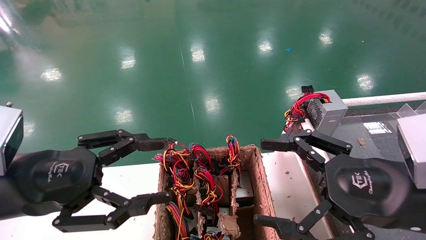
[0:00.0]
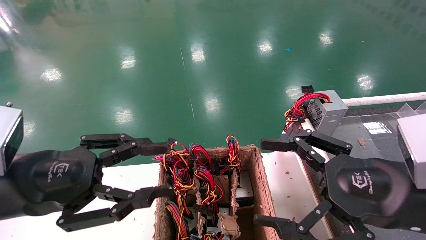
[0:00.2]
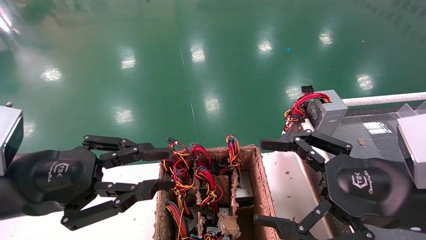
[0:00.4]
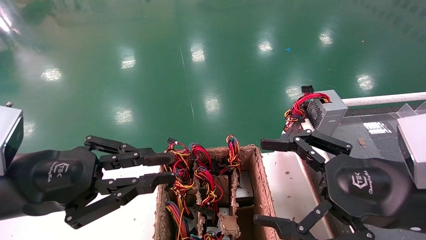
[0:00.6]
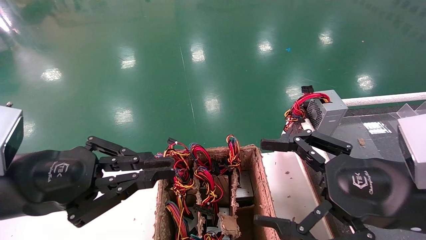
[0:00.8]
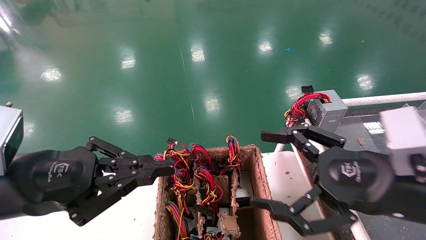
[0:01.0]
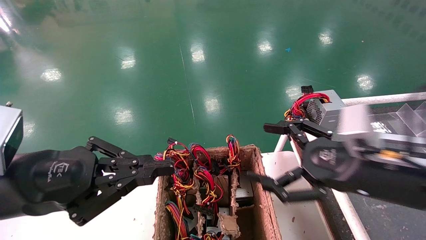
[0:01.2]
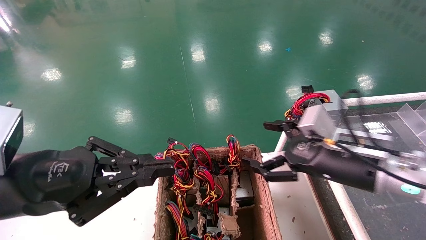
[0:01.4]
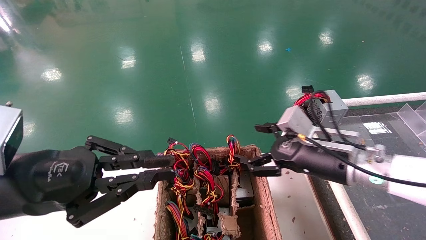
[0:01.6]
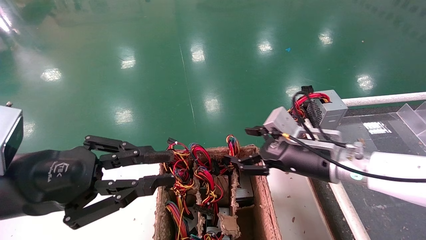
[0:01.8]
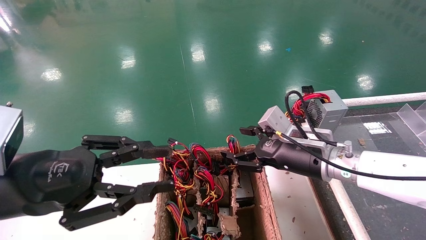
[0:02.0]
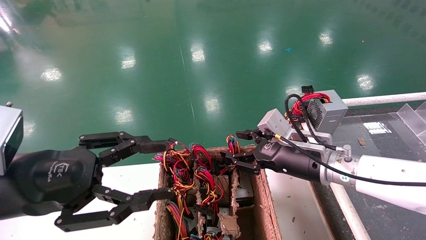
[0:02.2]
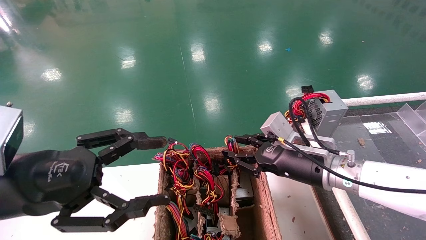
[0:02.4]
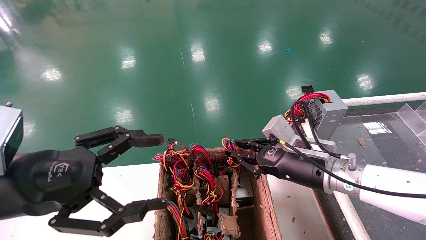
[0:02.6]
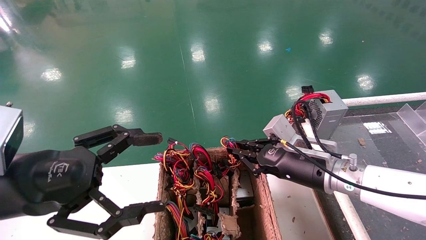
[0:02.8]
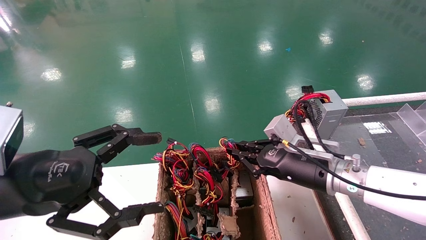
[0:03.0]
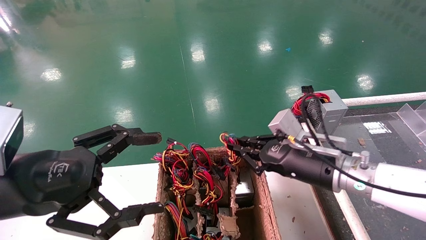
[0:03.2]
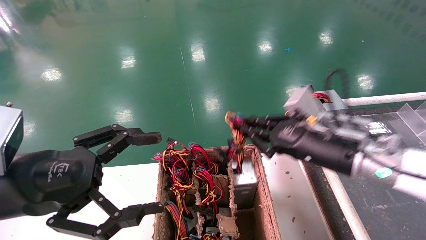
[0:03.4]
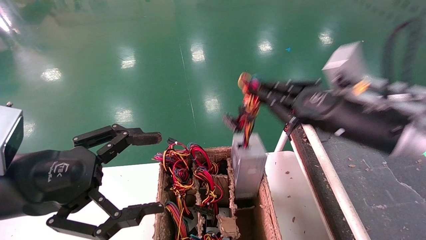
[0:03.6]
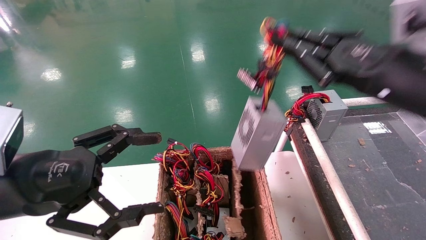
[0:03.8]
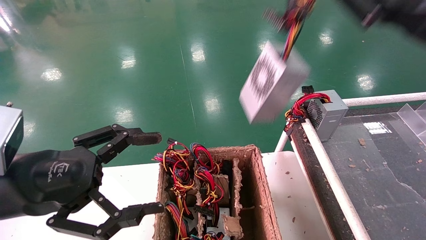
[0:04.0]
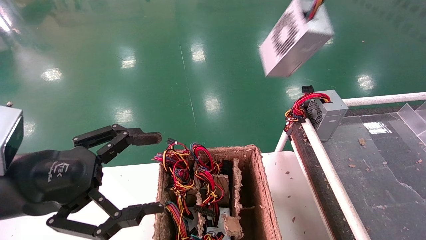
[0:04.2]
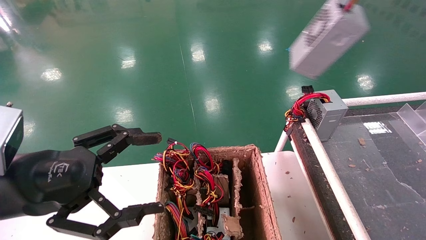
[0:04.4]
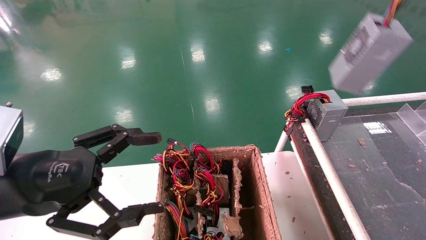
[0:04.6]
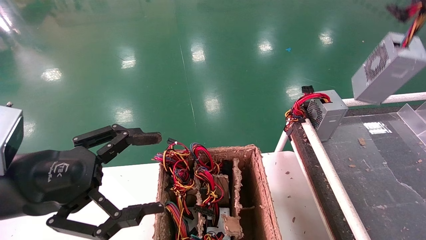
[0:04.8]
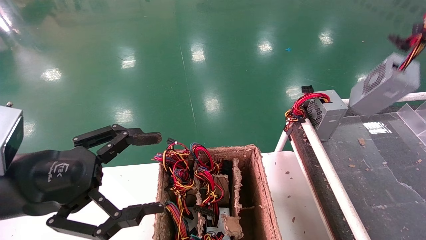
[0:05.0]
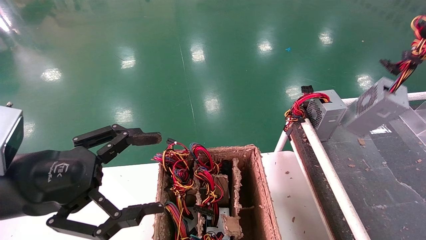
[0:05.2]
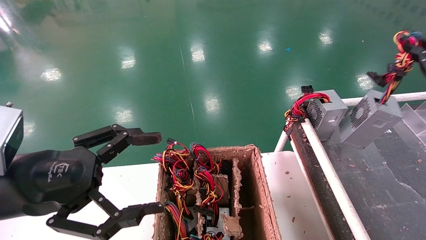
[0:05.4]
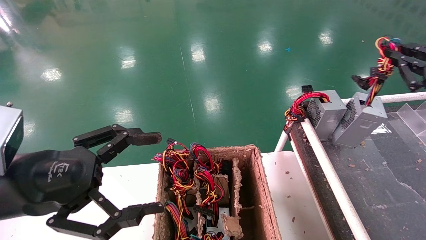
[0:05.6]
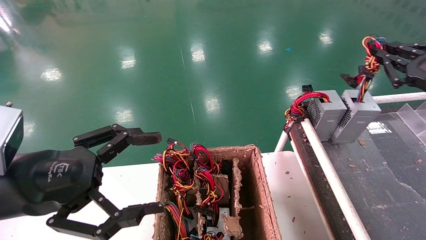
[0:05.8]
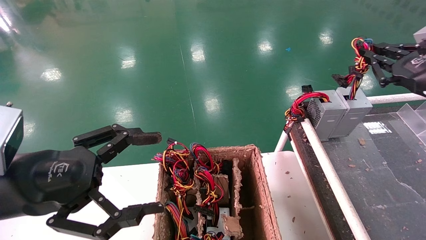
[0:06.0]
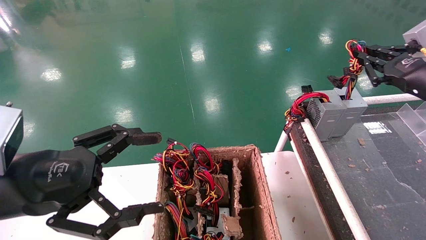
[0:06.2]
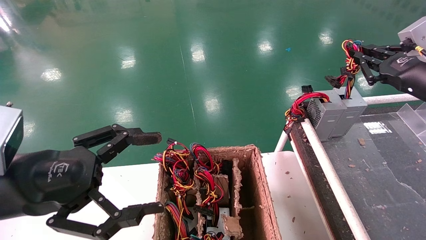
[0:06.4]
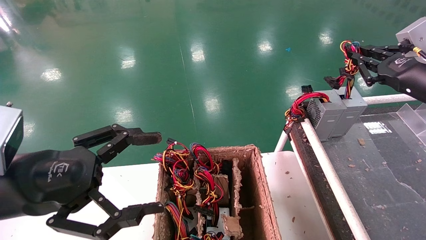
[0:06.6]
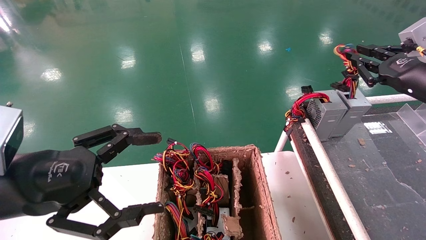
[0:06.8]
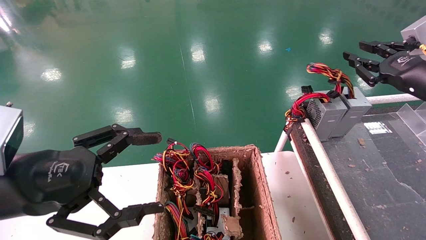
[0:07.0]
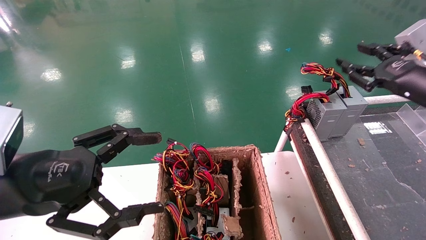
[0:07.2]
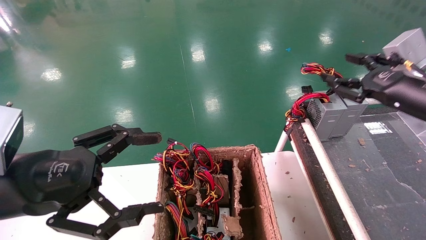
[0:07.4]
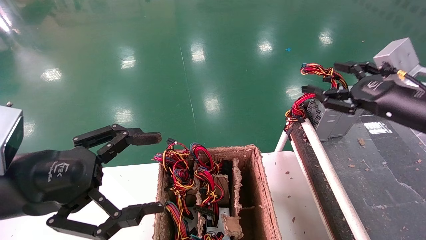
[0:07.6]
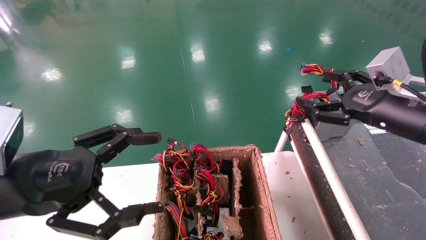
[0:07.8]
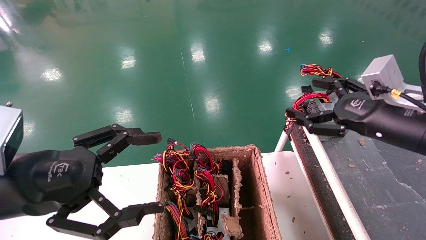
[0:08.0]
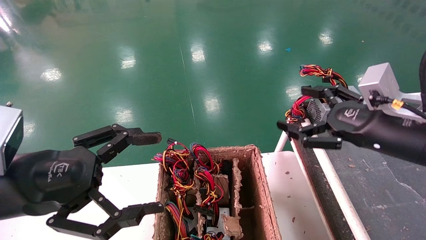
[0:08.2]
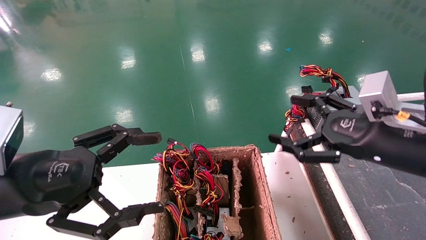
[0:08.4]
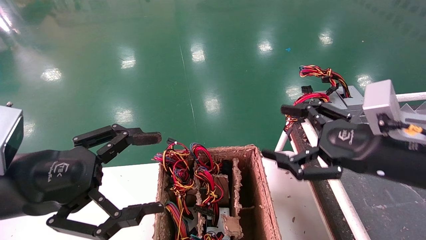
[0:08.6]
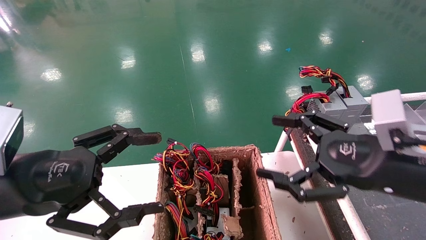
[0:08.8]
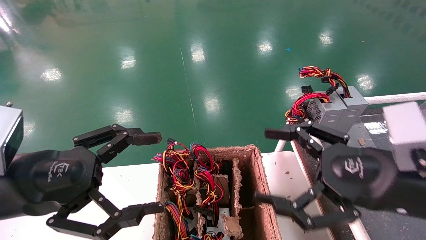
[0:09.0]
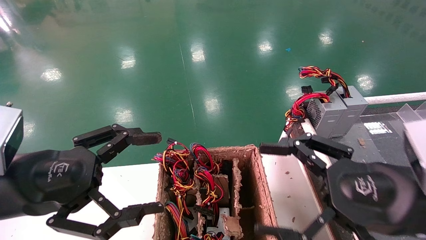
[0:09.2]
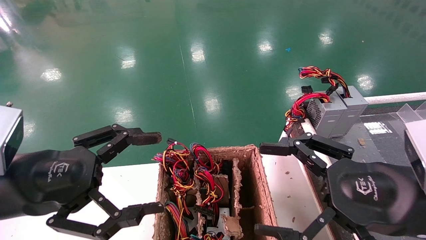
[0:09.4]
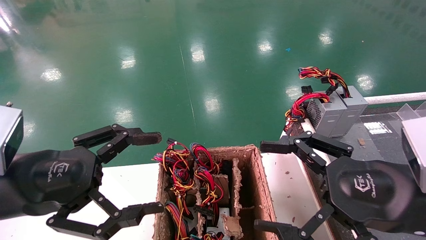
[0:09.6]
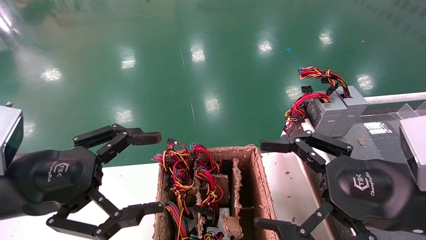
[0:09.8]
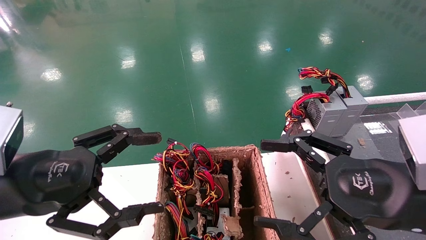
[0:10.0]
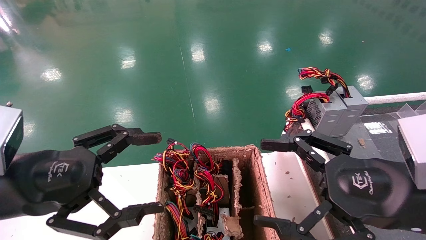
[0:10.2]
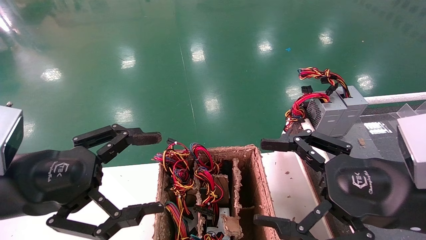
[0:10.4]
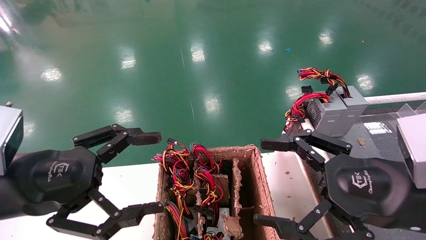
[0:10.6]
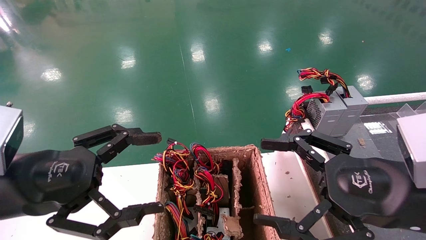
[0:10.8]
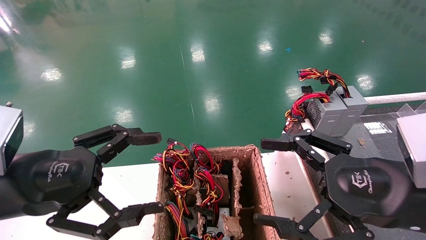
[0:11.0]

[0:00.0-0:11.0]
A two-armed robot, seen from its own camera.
Step, 0:01.2 to 0:03.0: Grab and lift the power supply from the large box.
Step, 0:03.2 to 0:06.8: Place the power supply on the operating table.
0:00.0 to 0:01.6: The right gripper moves forward, some 15 cm. Meanwhile the left gripper closes its fingers.
0:01.6 to 0:03.2: The right gripper closes. Meanwhile the left gripper opens up.
0:03.2 to 0:04.8: The right gripper is displaced to the right, upward and backward by approximately 30 cm.
0:04.8 to 0:06.2: The right gripper goes about 15 cm forward and downward.
0:06.2 to 0:07.8: The right gripper goes some 5 cm to the left, and opens its fingers.
0:07.8 to 0:09.4: The right gripper moves backward and to the left, about 15 cm.
0:09.4 to 0:11.0: The two grippers keep their place.
